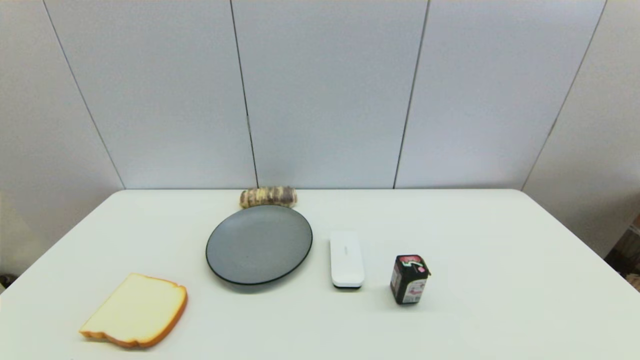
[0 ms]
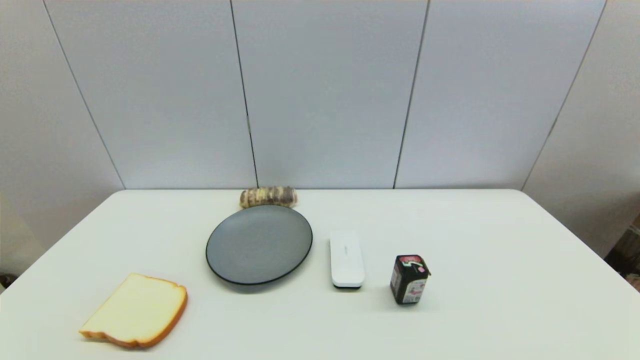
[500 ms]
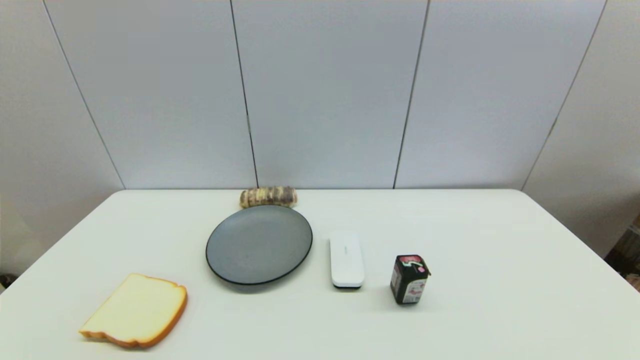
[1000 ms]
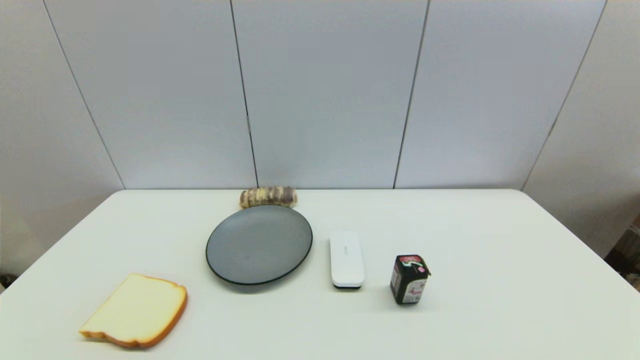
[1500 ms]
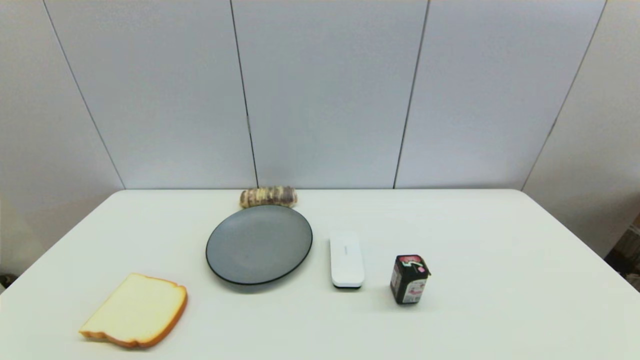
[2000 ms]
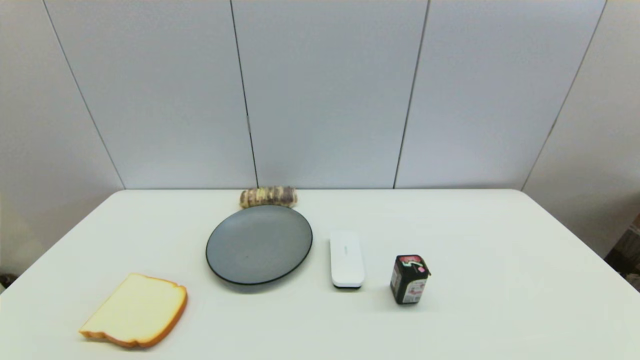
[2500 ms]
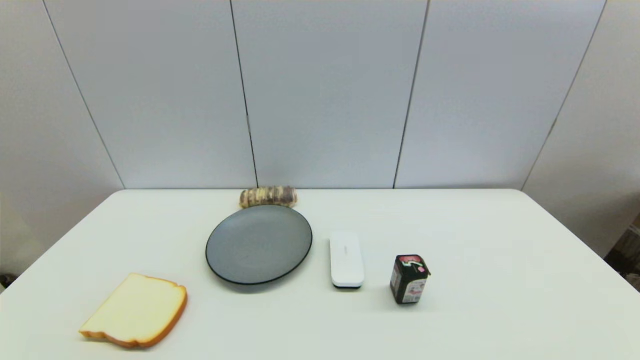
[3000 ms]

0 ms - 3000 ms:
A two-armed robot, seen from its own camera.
1500 ms - 3000 ms: Both grippers stay about where they are.
